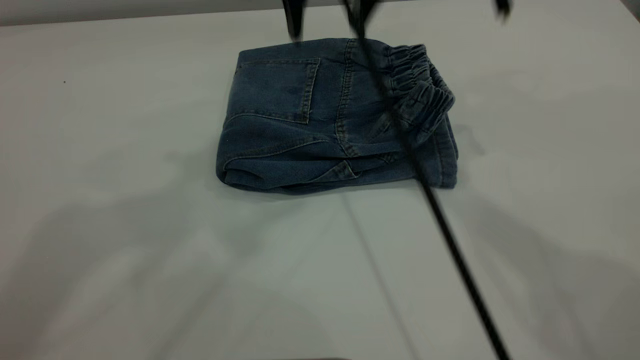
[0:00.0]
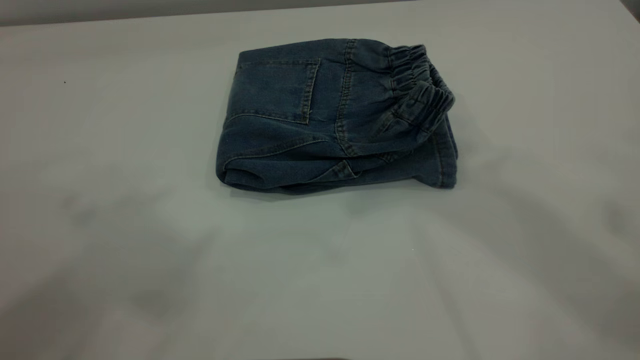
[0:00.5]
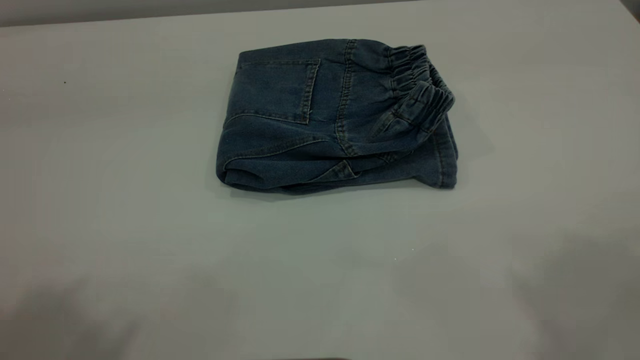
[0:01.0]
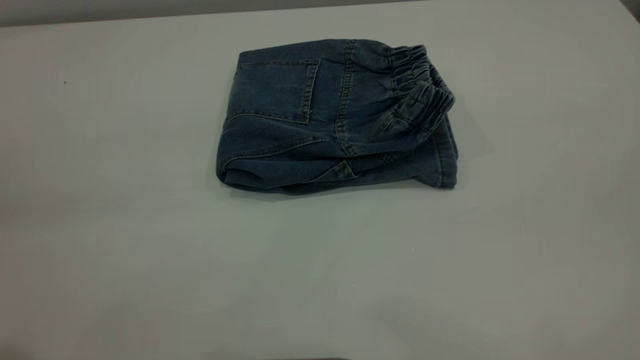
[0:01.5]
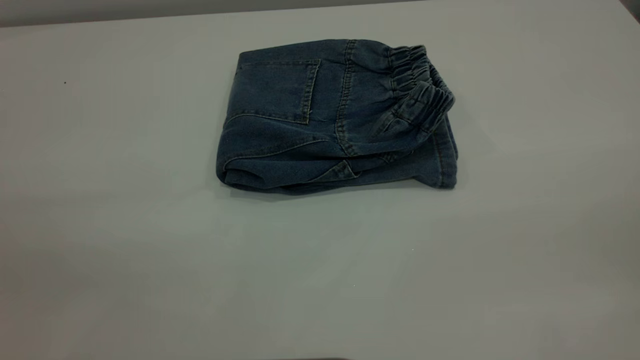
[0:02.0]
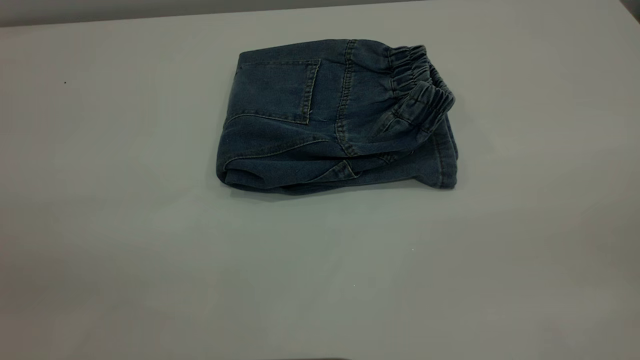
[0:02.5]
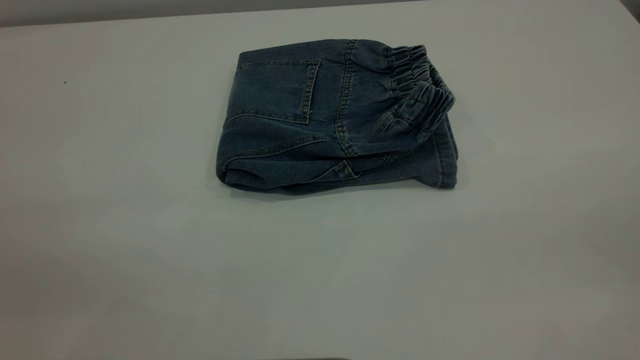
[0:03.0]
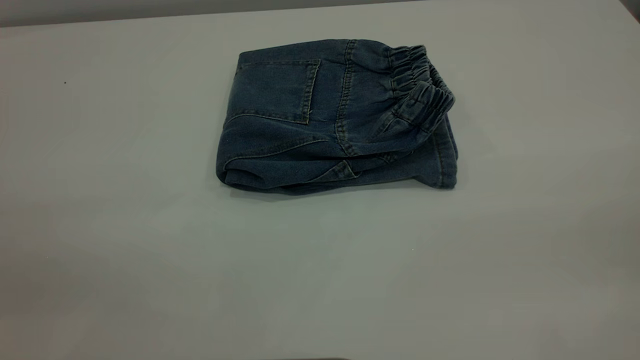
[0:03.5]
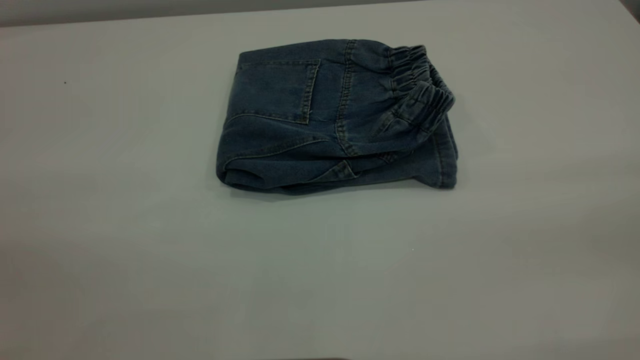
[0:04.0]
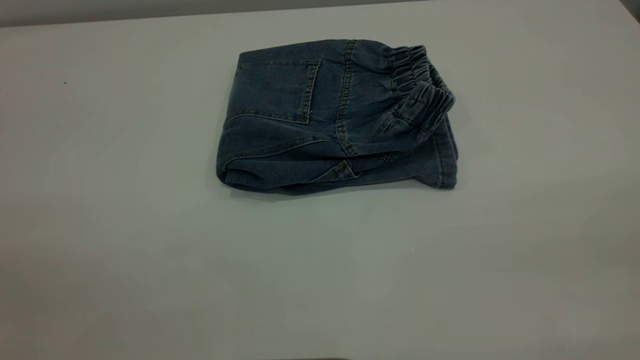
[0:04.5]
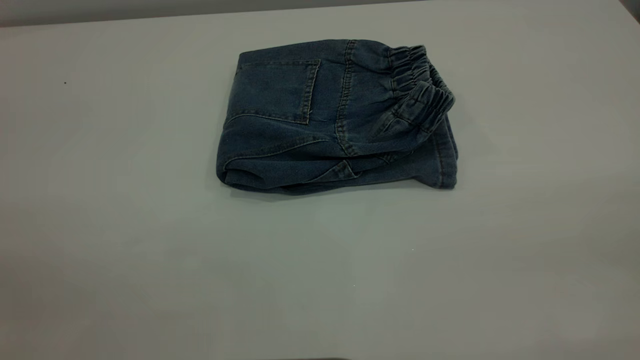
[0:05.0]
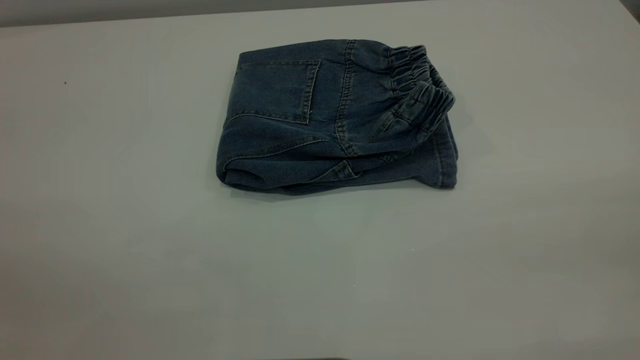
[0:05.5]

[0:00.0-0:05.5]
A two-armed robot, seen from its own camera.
0:00.0 to 0:02.0: The right gripper goes approximately 40 cm backward and to the right; the left gripper shifts some 30 cm backward, downward and to the left.
